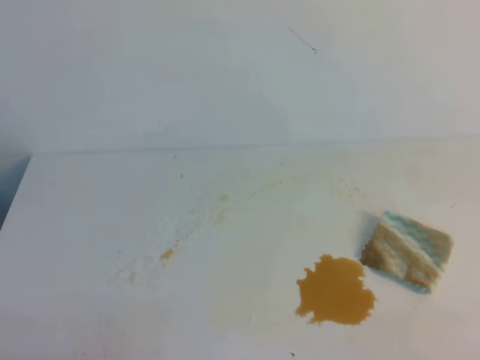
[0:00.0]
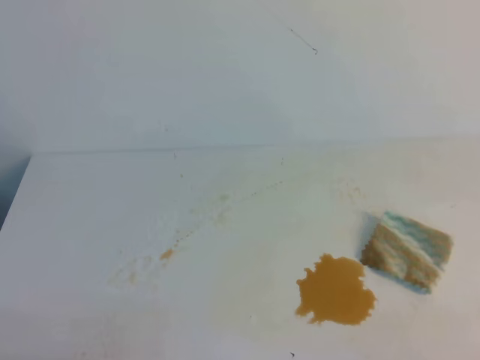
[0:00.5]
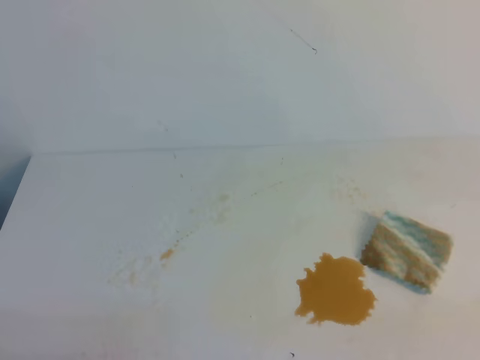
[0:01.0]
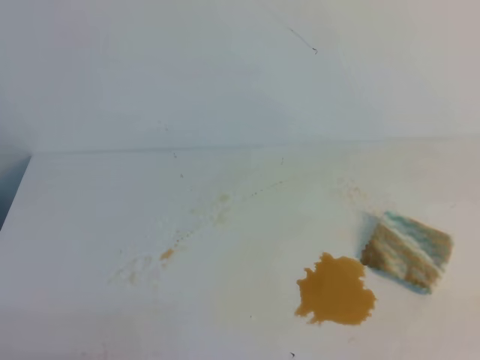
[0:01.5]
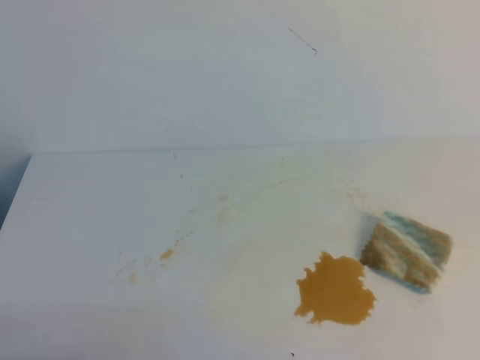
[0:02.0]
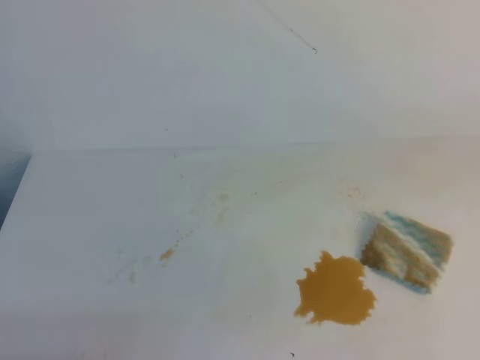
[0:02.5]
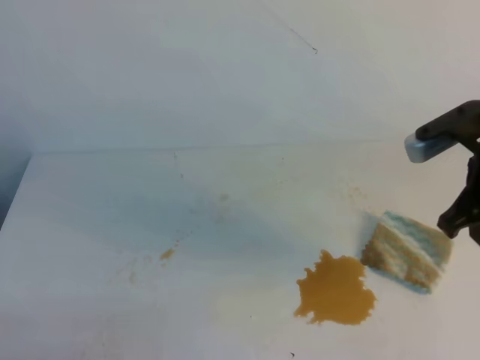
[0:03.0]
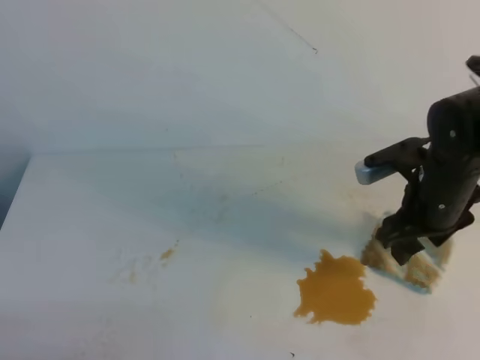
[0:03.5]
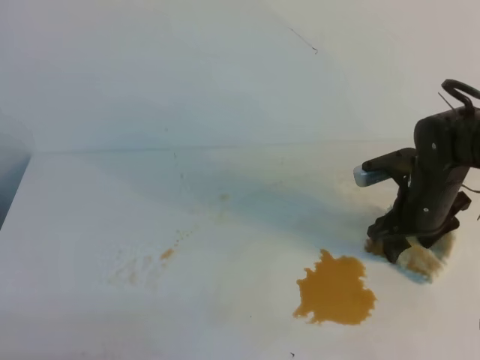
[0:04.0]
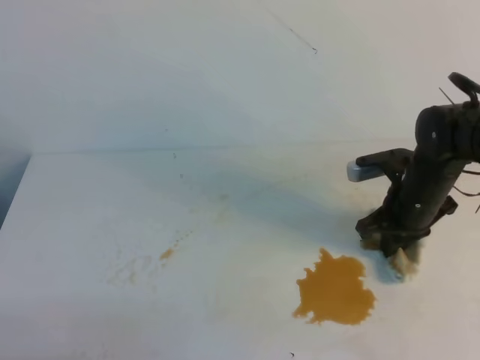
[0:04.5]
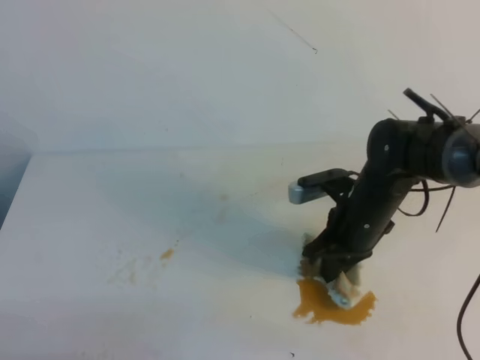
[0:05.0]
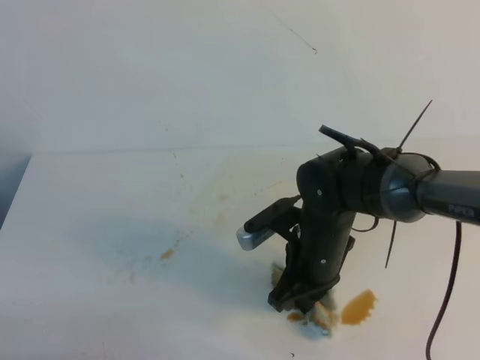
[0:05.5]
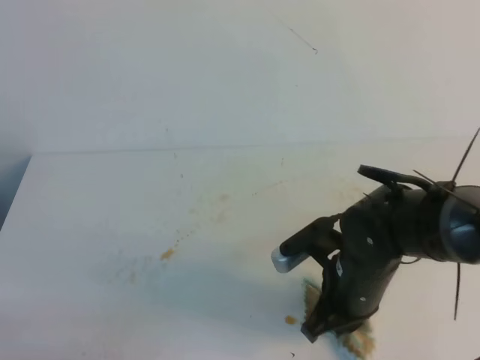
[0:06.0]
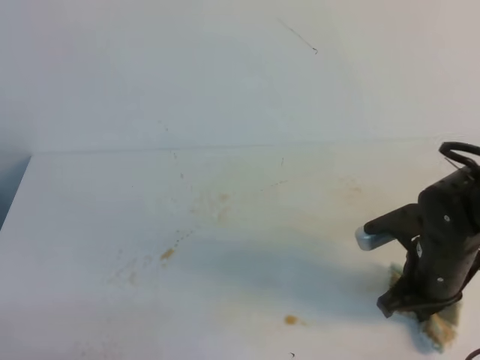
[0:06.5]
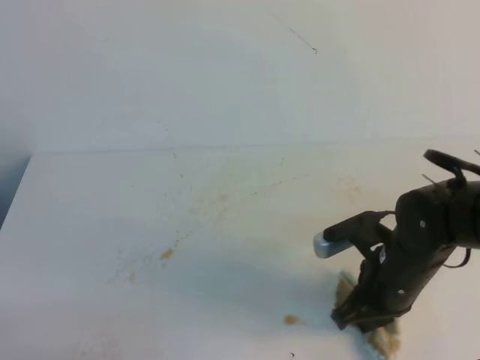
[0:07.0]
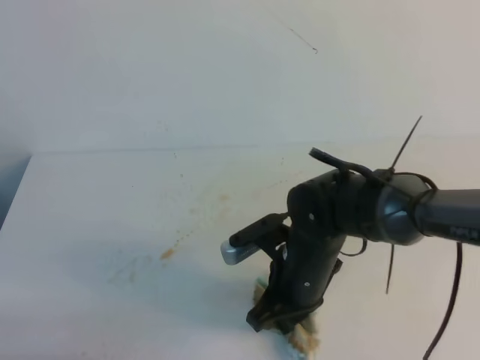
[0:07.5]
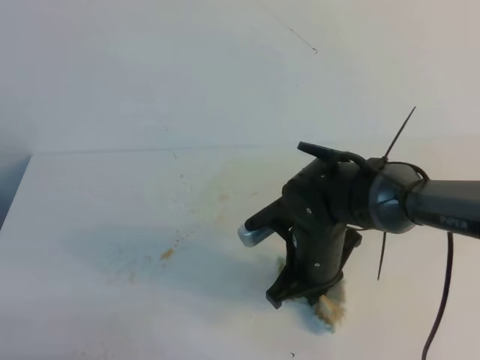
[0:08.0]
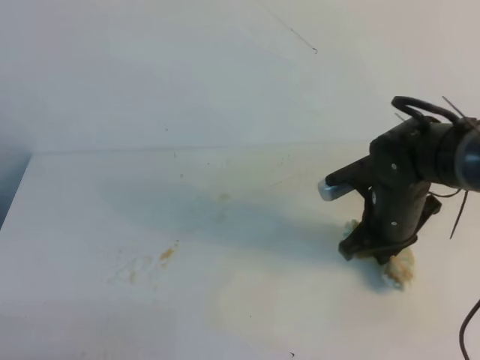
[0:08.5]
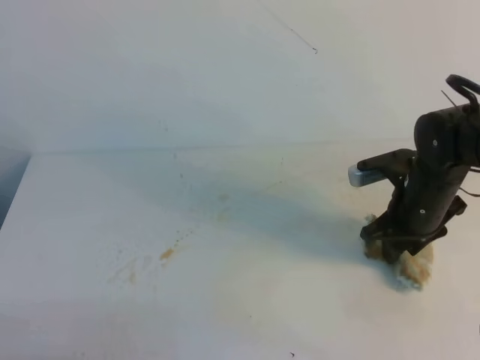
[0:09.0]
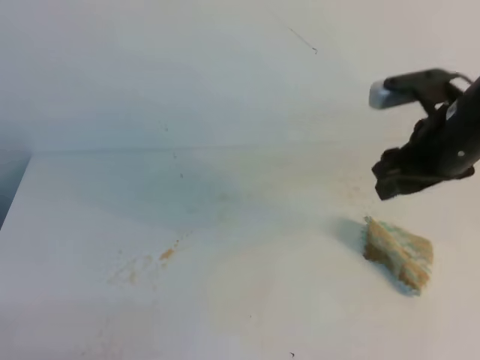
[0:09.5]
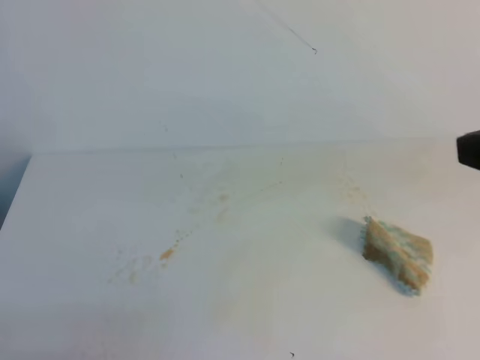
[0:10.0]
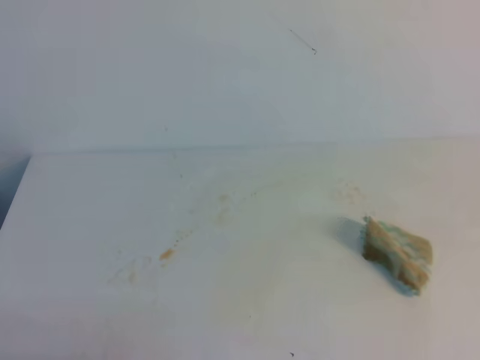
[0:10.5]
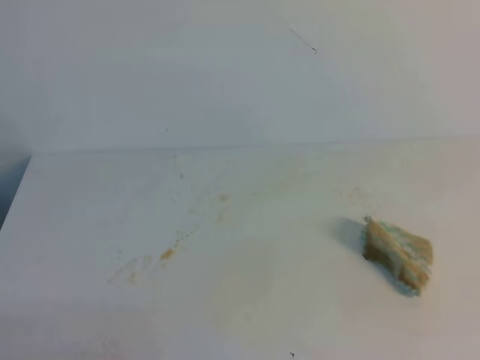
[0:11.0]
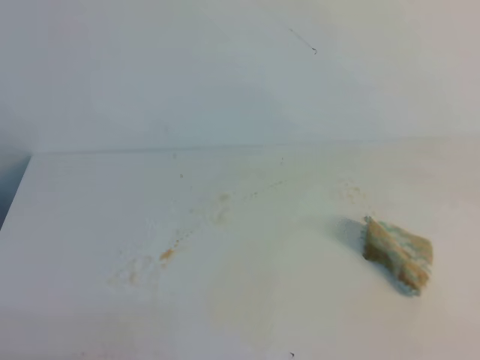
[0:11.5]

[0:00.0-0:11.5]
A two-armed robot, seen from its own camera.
0:02.0 to 0:04.0: The right gripper is displaced forward and downward by some 35 cm, and opens its fingers.
0:04.0 to 0:06.0: The right gripper shifts approximately 15 cm to the left and backward, and closes its fingers.
0:06.0 to 0:07.5: The right gripper travels to the right and back again, roughly 10 cm each way.
0:07.5 to 0:09.5: The right gripper goes roughly 20 cm to the right, upward and forward, and opens its fingers.
0:09.5 to 0:11.5: The right gripper heads backward, covering some 30 cm, and closes up.

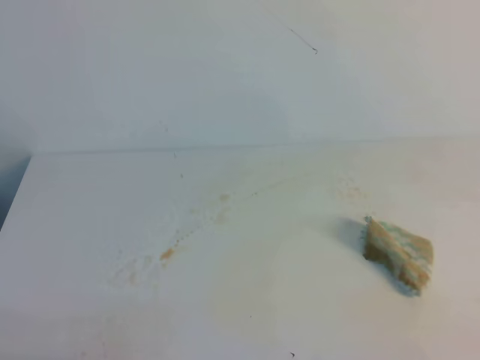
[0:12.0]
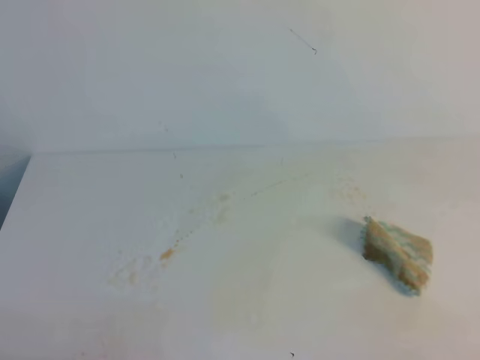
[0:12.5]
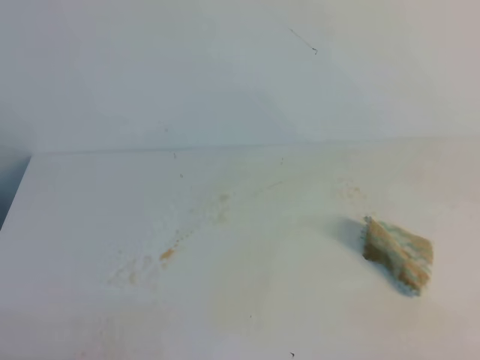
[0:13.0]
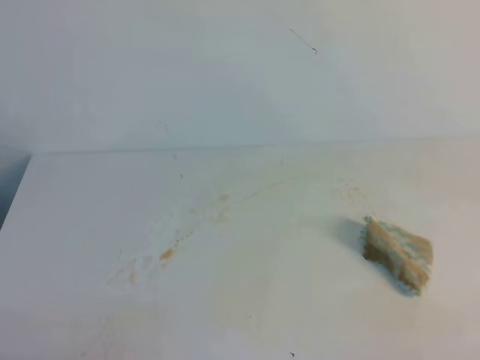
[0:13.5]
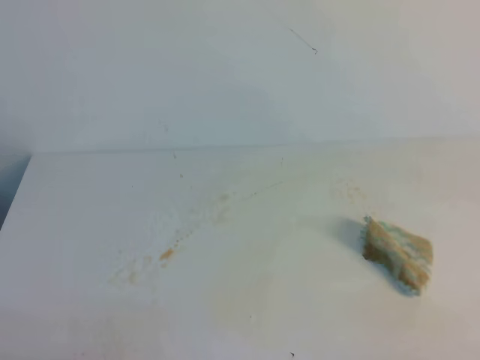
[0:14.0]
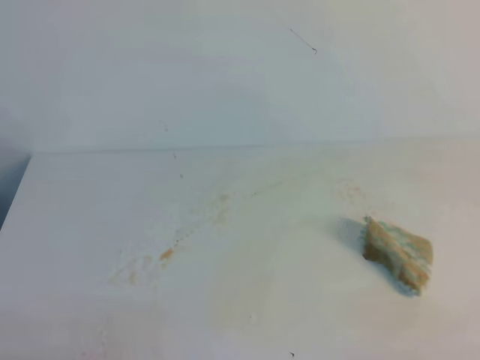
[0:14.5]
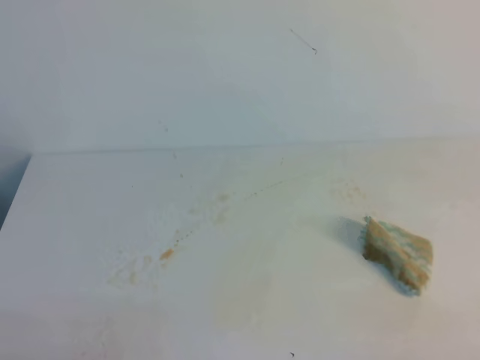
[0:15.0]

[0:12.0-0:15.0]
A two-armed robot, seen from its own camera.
0:13.5 to 0:15.0: Both grippers stay put.
